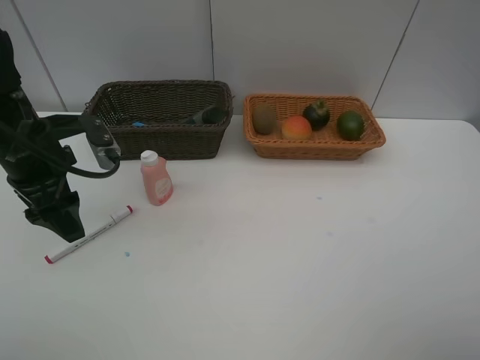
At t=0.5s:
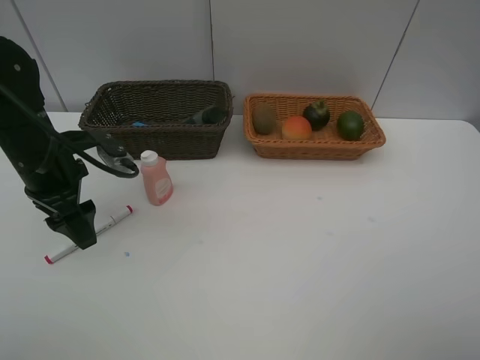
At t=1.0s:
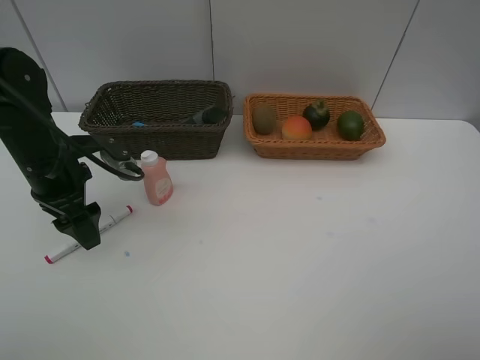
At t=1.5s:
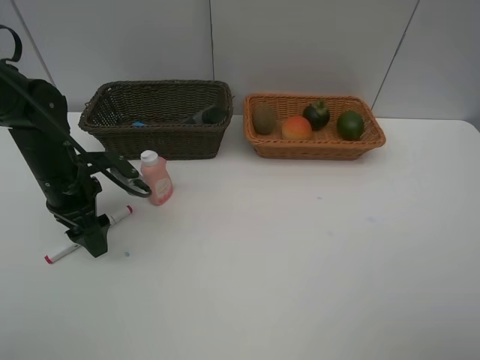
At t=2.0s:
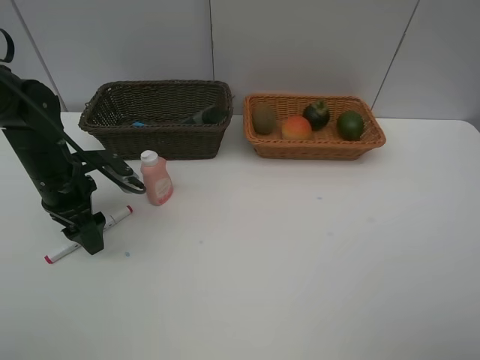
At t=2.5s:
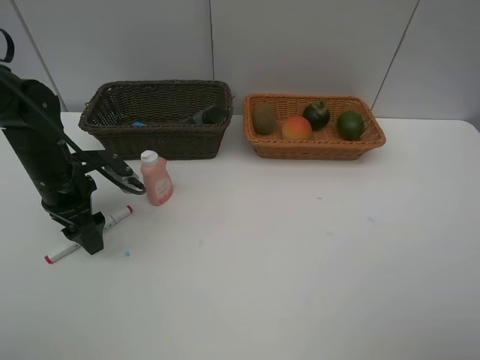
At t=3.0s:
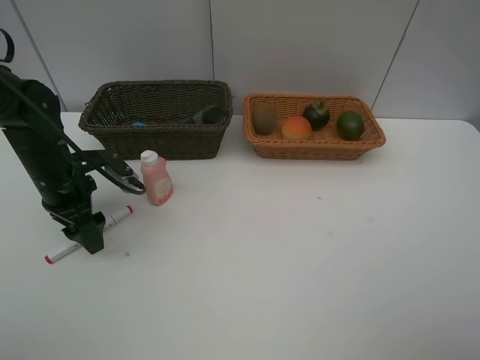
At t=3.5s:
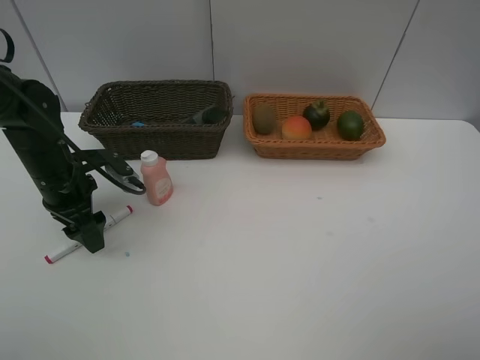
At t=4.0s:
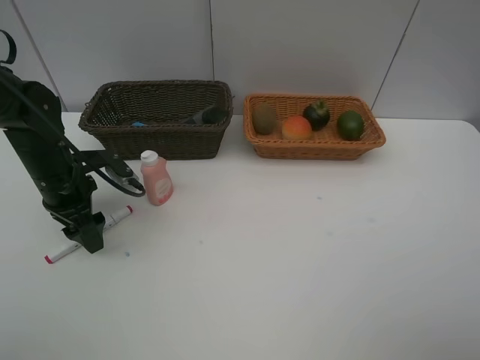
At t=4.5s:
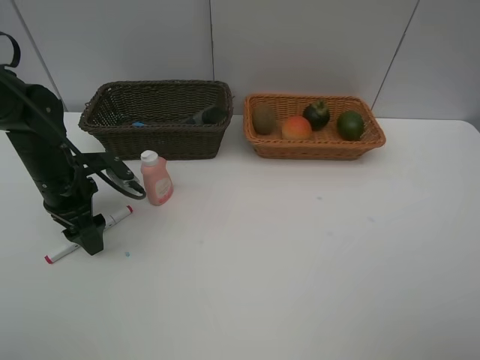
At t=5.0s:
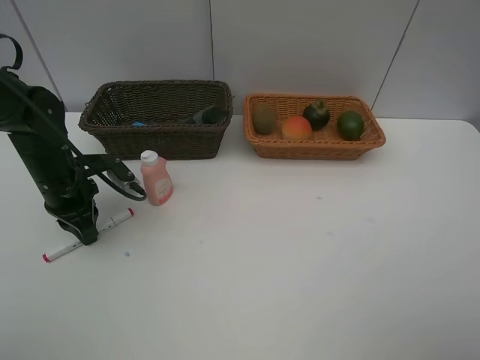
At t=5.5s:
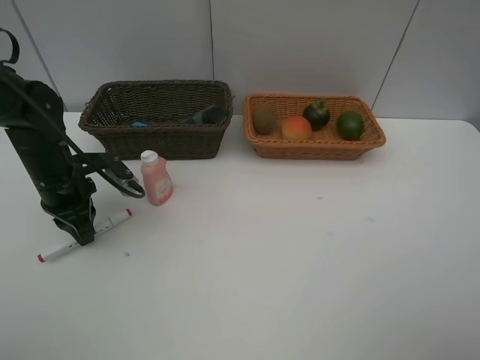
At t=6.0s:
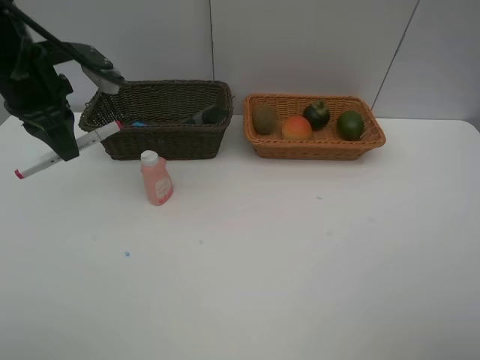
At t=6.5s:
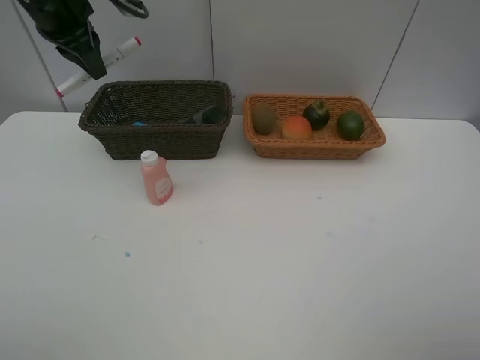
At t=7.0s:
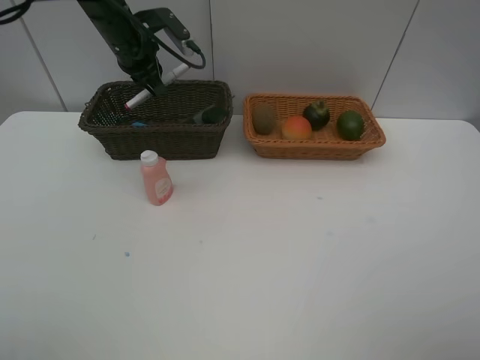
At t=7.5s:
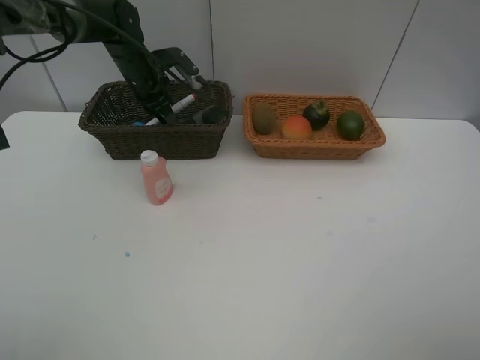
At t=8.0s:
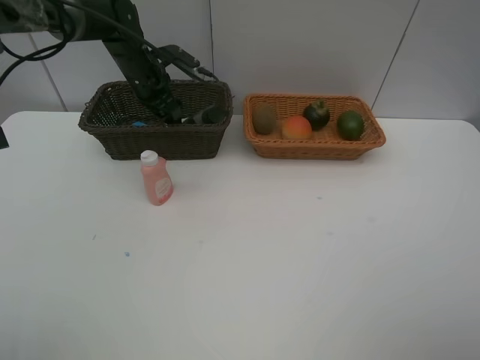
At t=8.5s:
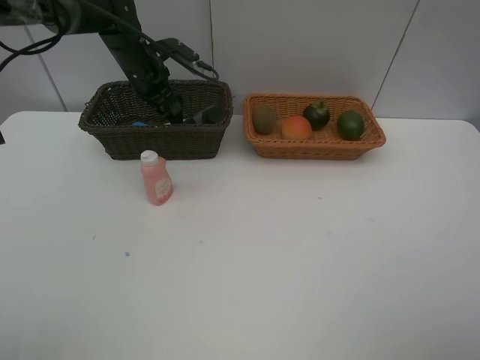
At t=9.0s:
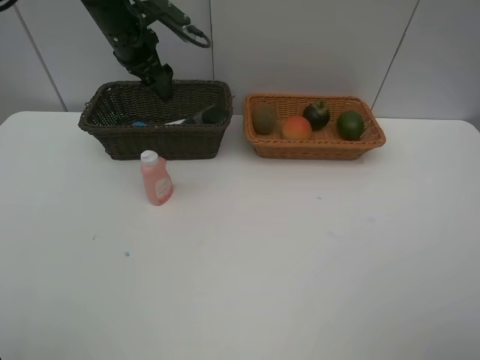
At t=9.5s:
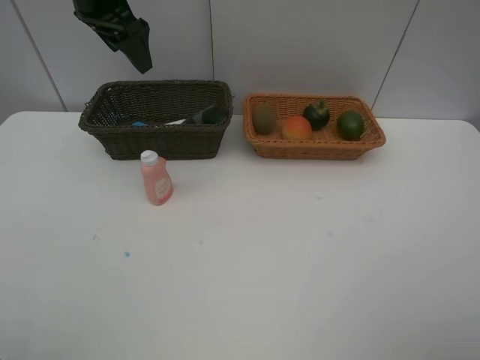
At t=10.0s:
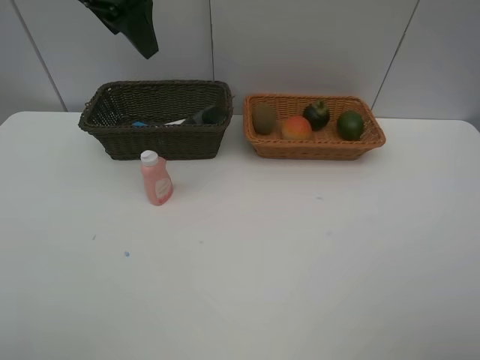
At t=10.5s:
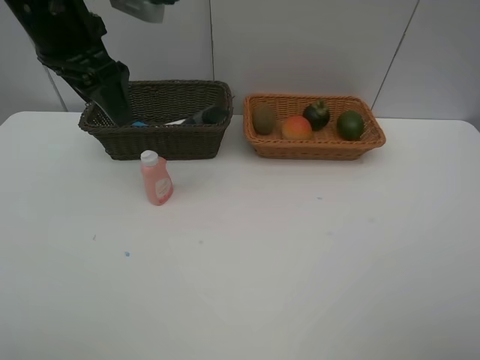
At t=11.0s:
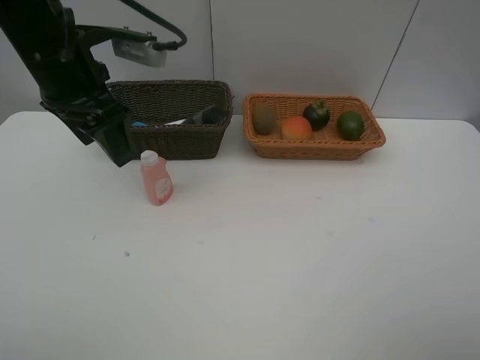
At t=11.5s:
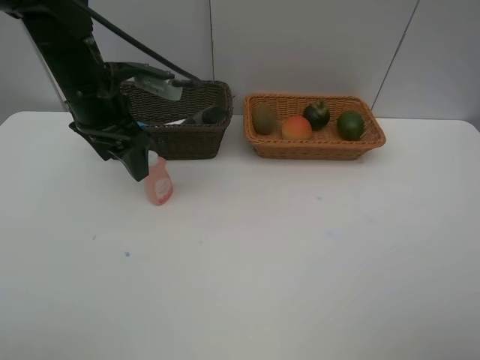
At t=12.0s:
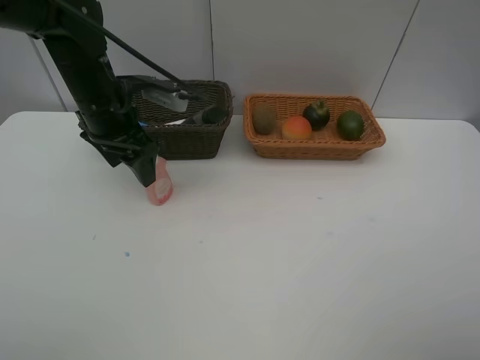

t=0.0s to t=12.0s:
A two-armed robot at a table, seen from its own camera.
Task of the whole recording: Place multiple objects separately in different baskets.
Step, t=0.0s to t=5.5s: Pick up the red marker with left gripper.
Step, t=6.0s to t=8.5s: Place the red marker in the dark basket with left gripper.
t=0.0s to t=2.0s: The left gripper travels downward by about 10 cm.
t=2.0s to t=4.0s: Neither gripper changes place.
t=4.0s to t=6.0s: The left gripper travels upward by about 15 cm, and closes its fingers.
t=6.0s to t=8.0s: The left gripper heads forward, downward and to the right, covering about 20 cm, and opens its fingers.
t=8.0s to t=10.0s: The left gripper shifts about 25 cm upward and backward.
t=10.0s to t=12.0s: The left gripper heads downward, covering approximately 15 cm.

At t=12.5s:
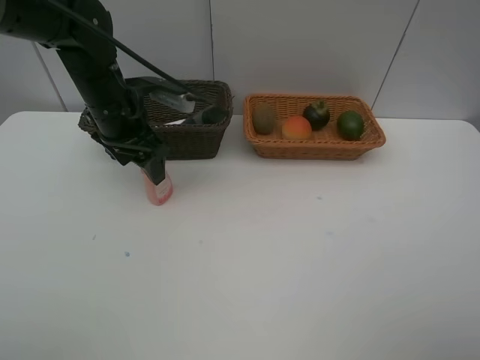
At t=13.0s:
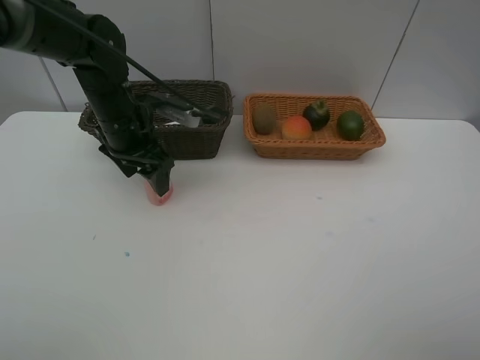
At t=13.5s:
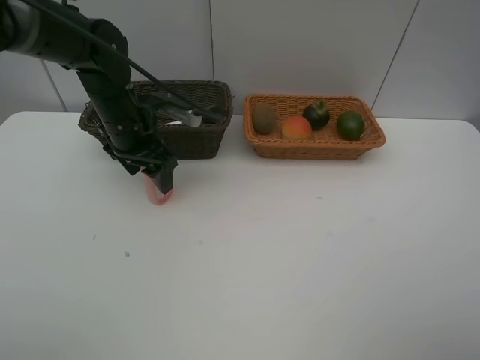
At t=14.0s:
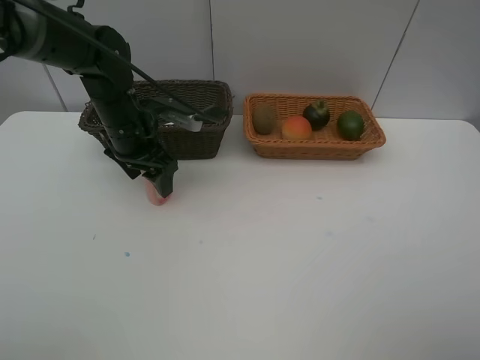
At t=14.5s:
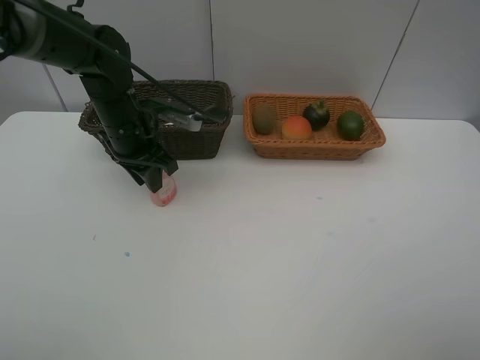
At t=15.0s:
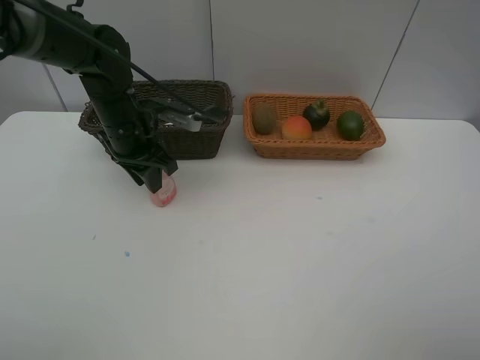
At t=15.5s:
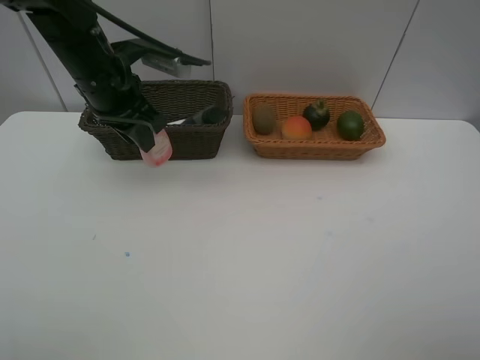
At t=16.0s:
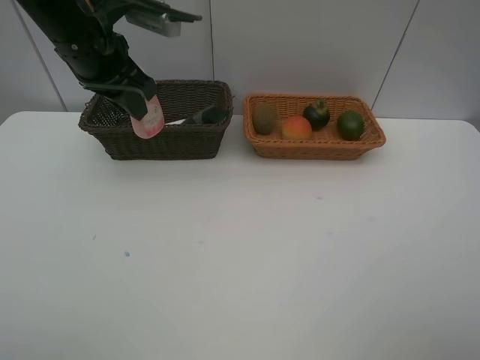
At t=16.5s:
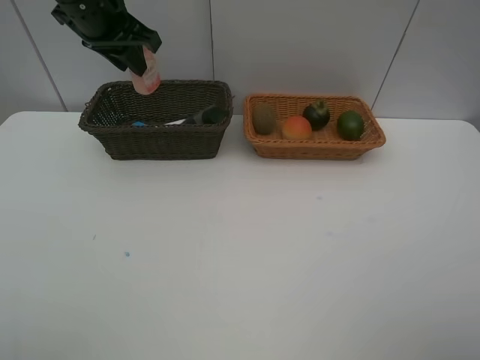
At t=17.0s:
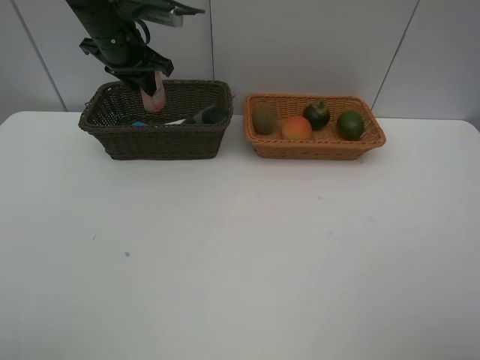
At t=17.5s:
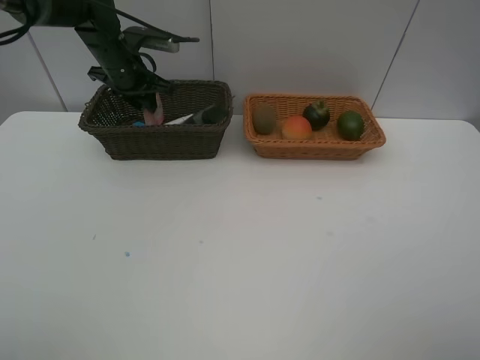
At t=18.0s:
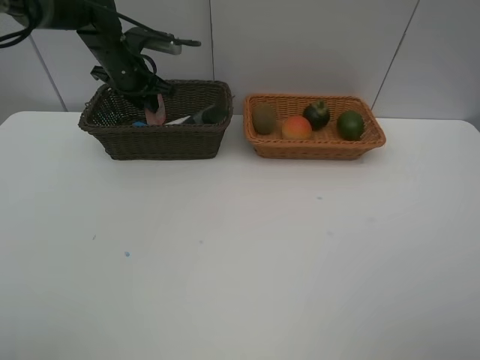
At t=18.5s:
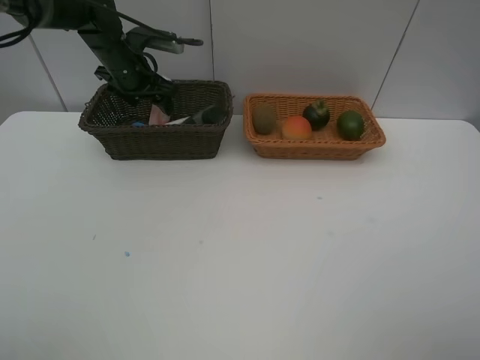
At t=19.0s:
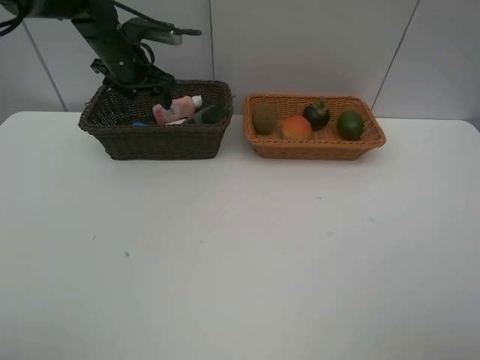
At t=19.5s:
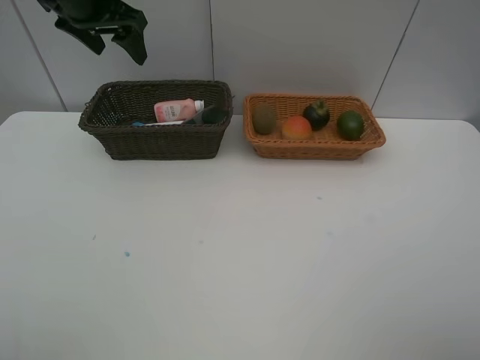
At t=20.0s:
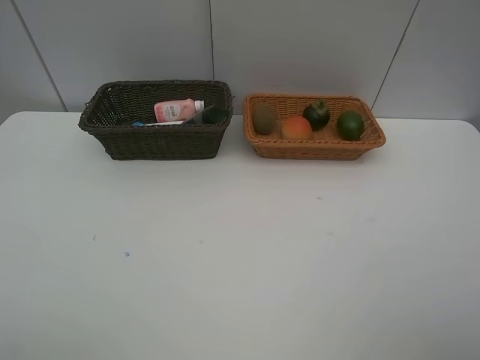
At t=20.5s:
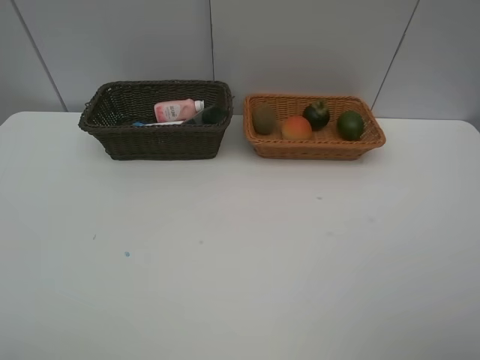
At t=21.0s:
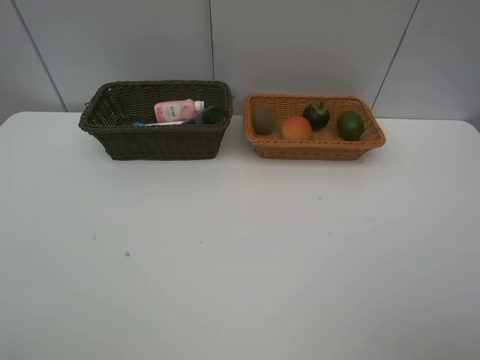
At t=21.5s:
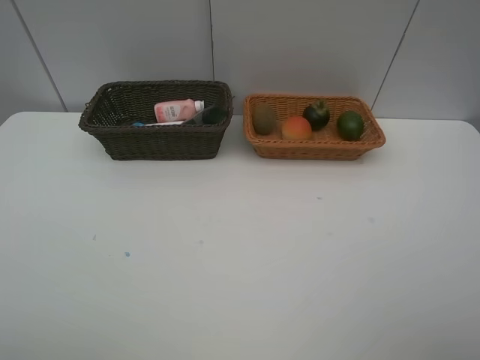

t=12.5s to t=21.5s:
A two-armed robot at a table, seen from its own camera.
Task of the whole recording: Place multiple objects separately in different baskets.
Step, t=12.5s to t=15.0s: Pick up the laundry detergent with left gripper.
Step, t=15.5s to t=18.5s: Place the laundry detergent in the dark basket with left gripper.
t=12.5s to t=14.5s: The left gripper closes.
t=14.5s to t=17.0s: The left gripper shifts about 15 cm forward and upward.
t=17.0s to t=19.5s: The left gripper heads upward, covering approximately 10 cm, and opens.
t=19.5s to t=21.5s: The left gripper moves backward, roughly 40 cm.

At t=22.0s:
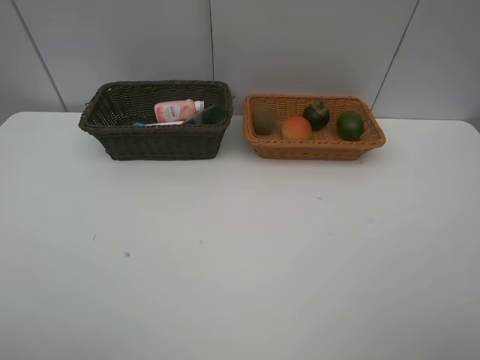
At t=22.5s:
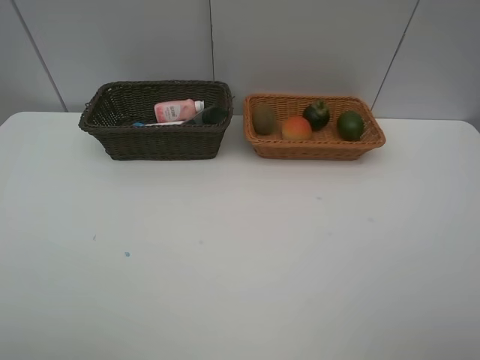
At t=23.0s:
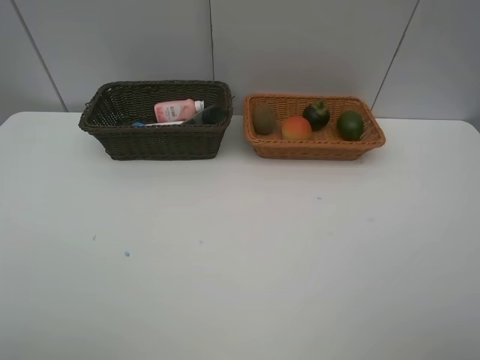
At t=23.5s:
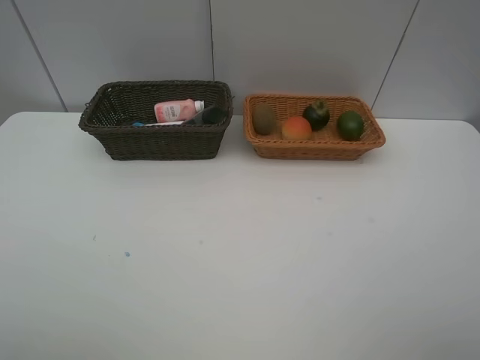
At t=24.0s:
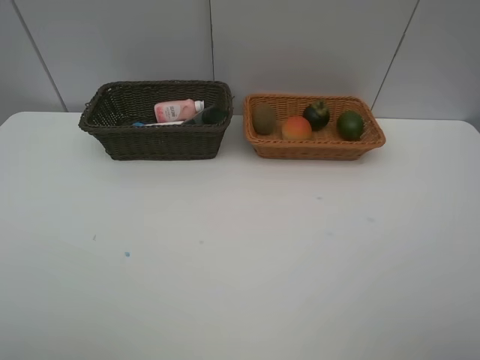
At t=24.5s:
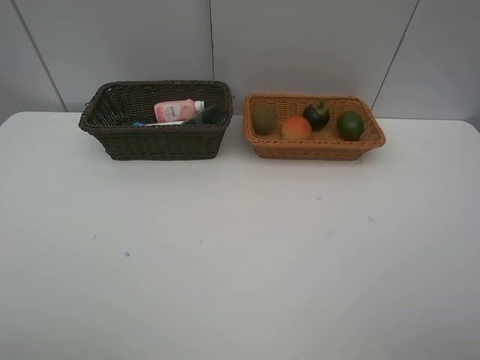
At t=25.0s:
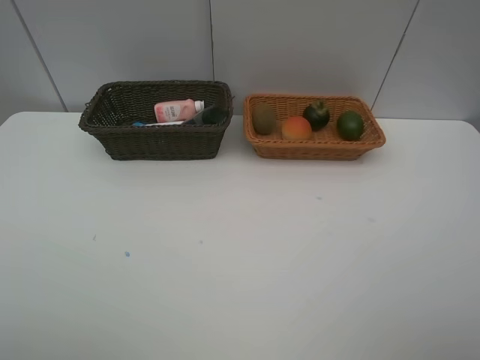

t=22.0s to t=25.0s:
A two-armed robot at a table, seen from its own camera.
Task of the whole recording: Place multiple objects separately in different baskets.
t=23.5s to t=25.0s: The two grippers keep their place.

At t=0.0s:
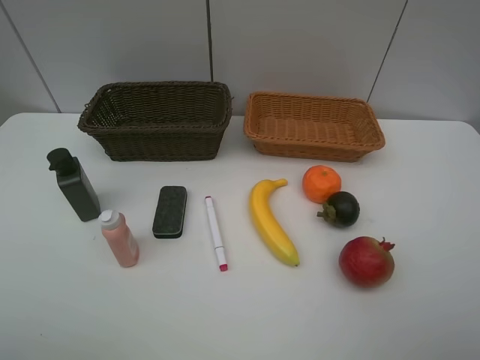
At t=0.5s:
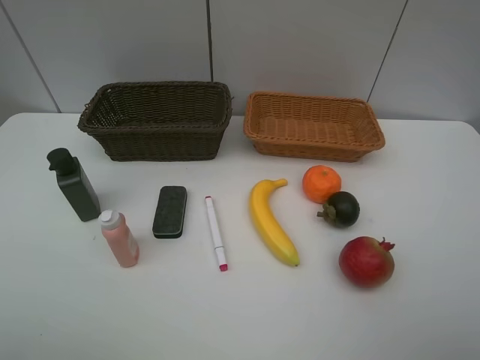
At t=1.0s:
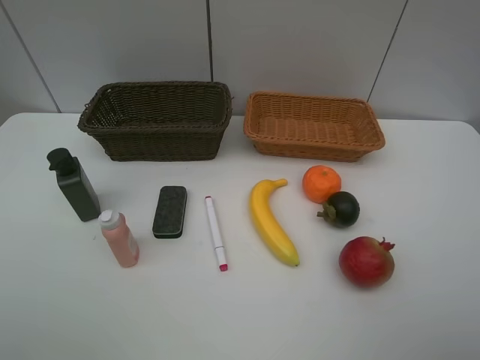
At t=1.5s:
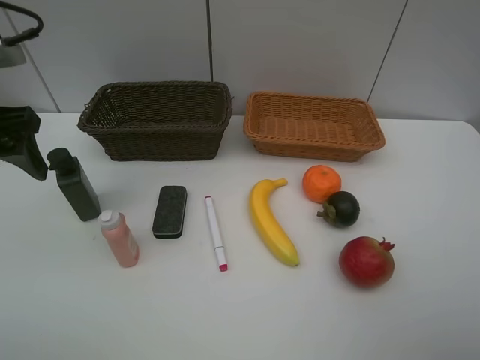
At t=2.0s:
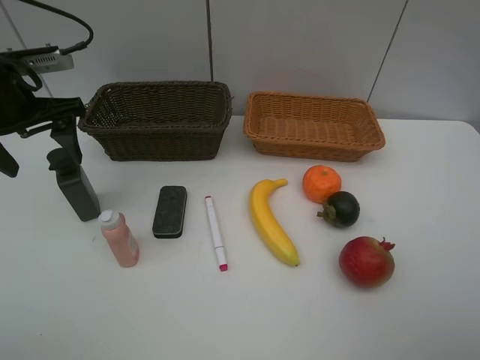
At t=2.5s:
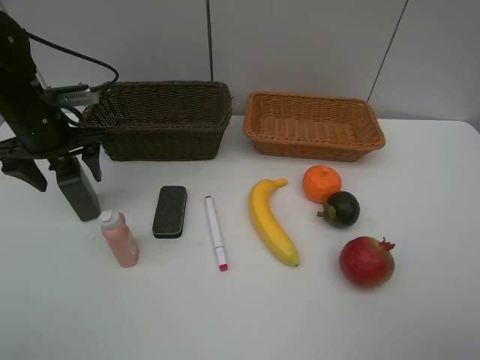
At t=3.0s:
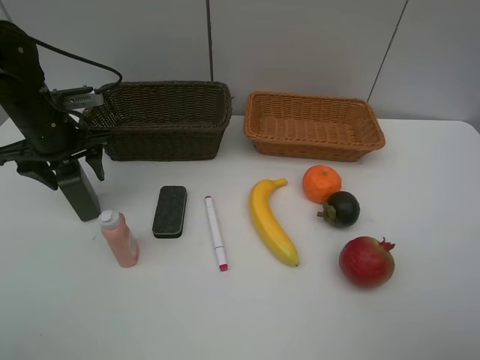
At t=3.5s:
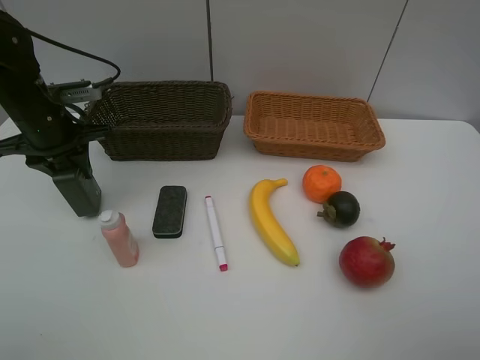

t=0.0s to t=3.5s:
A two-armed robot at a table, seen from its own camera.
Task of the whole recording: Place multiple objects separately in different baskets.
t=0.0s to t=2.0s: The left gripper goes some 30 cm forward.
t=2.0s to t=3.5s: The left gripper shifts some 5 cm downward, and closes its fingers.
